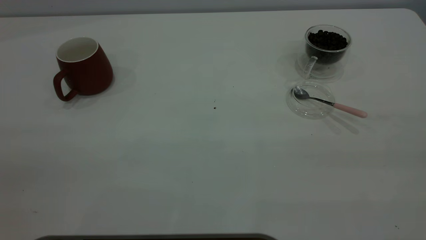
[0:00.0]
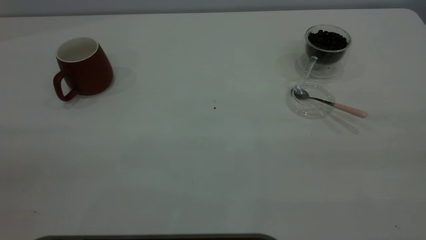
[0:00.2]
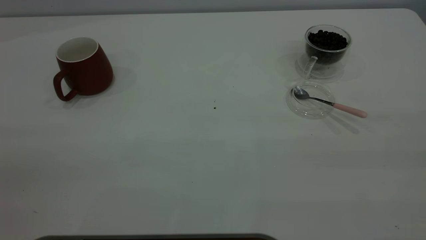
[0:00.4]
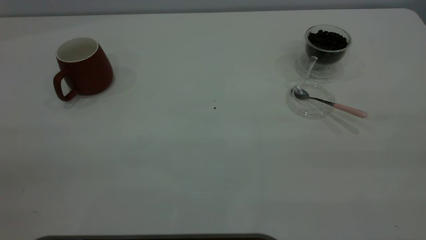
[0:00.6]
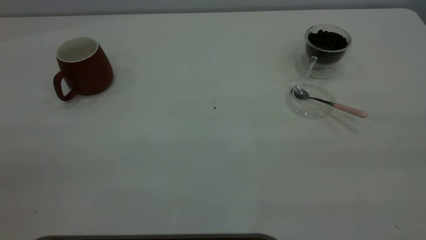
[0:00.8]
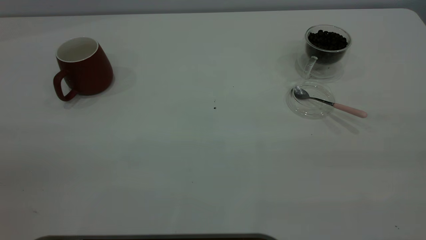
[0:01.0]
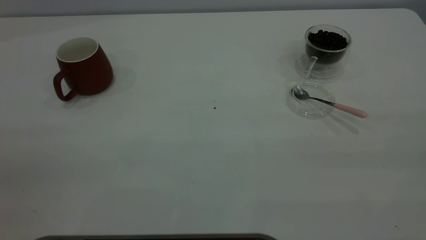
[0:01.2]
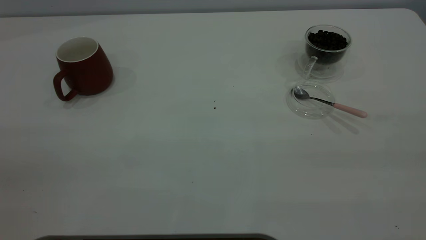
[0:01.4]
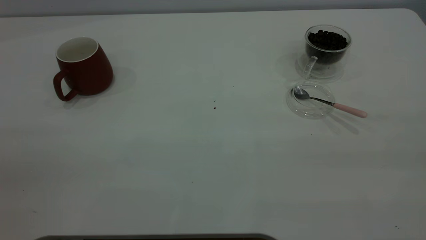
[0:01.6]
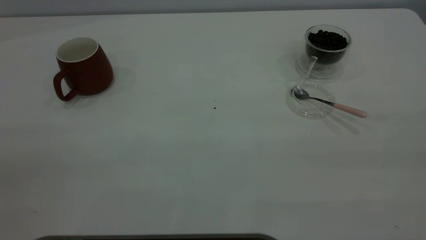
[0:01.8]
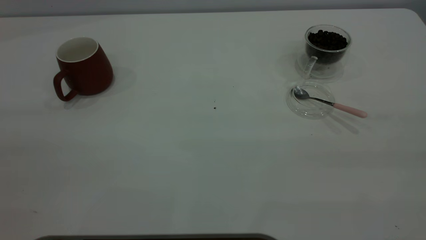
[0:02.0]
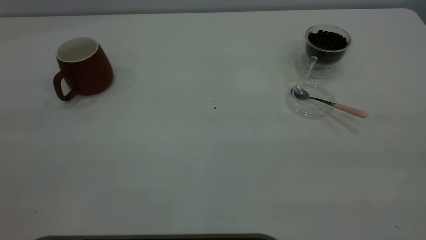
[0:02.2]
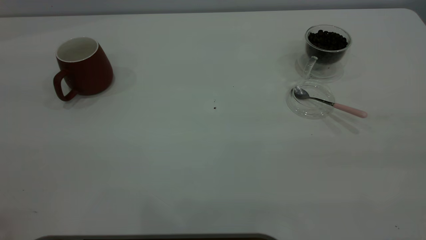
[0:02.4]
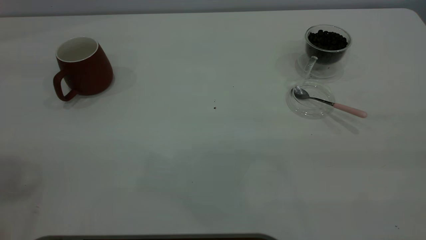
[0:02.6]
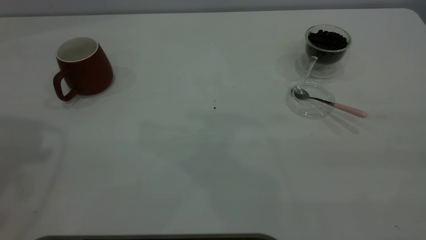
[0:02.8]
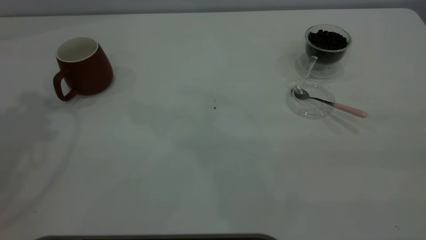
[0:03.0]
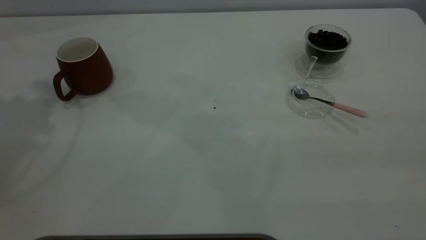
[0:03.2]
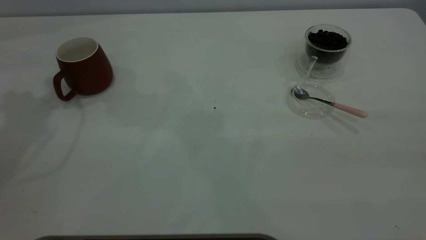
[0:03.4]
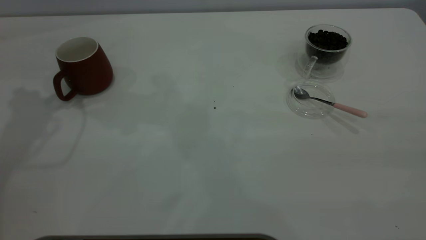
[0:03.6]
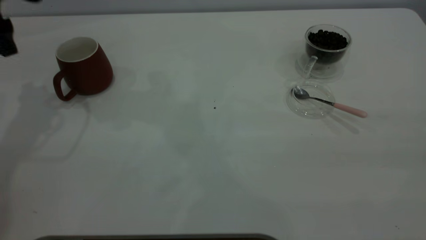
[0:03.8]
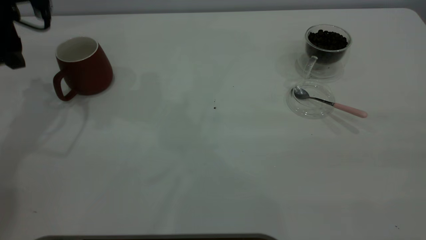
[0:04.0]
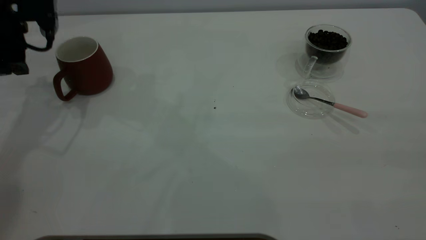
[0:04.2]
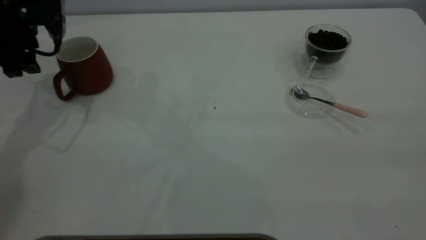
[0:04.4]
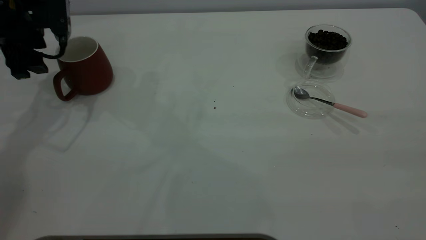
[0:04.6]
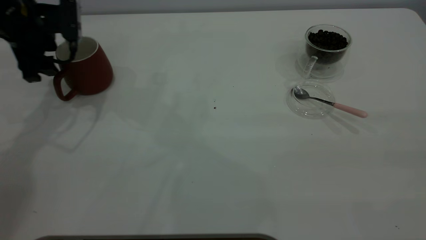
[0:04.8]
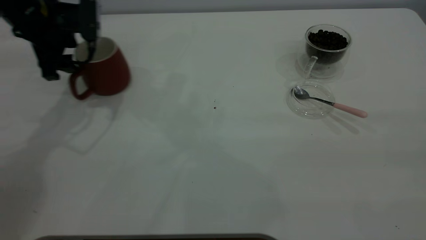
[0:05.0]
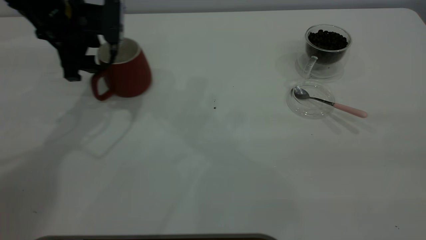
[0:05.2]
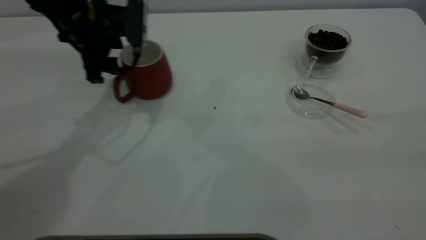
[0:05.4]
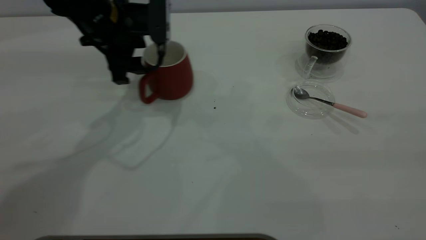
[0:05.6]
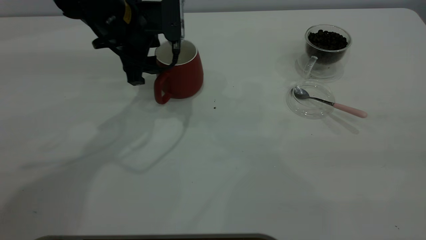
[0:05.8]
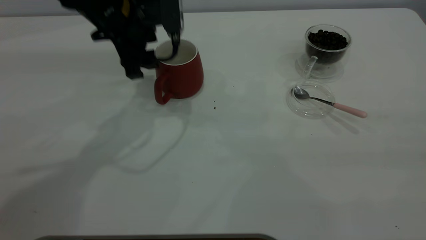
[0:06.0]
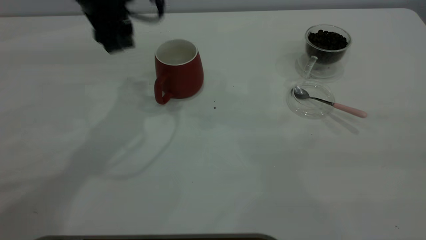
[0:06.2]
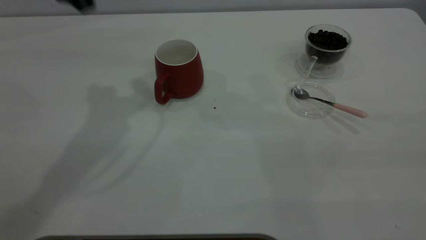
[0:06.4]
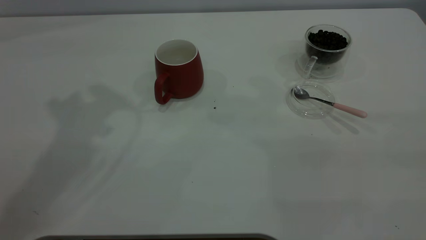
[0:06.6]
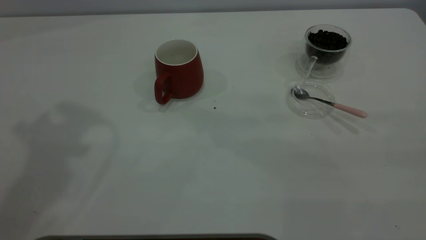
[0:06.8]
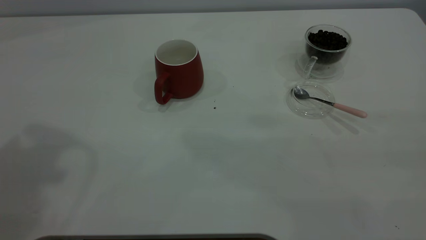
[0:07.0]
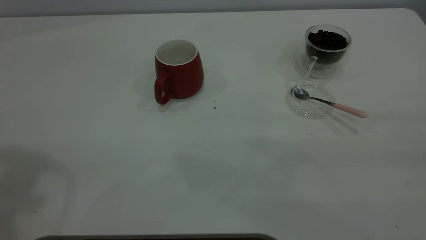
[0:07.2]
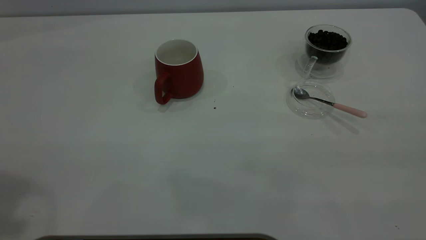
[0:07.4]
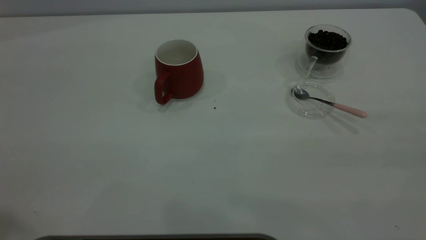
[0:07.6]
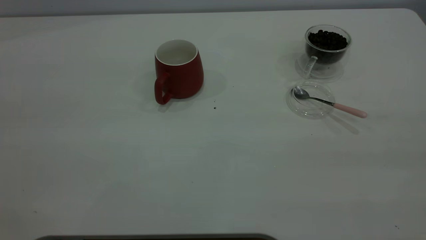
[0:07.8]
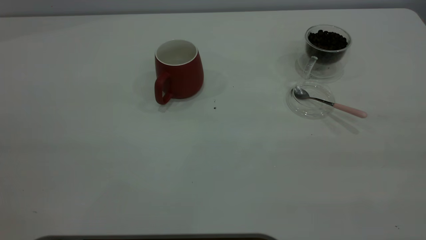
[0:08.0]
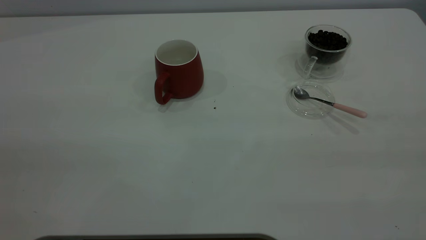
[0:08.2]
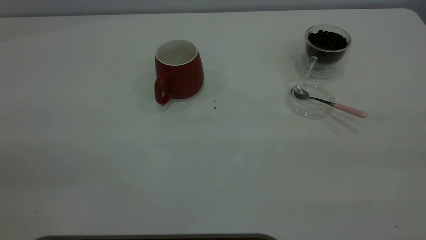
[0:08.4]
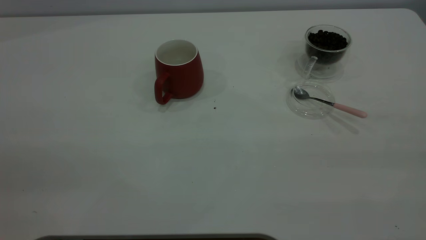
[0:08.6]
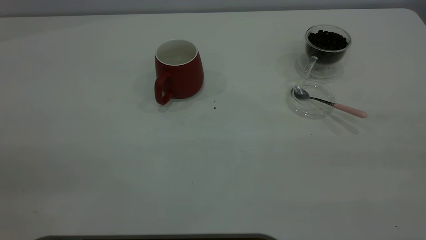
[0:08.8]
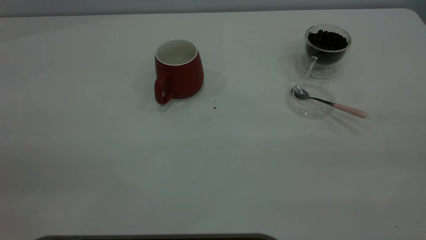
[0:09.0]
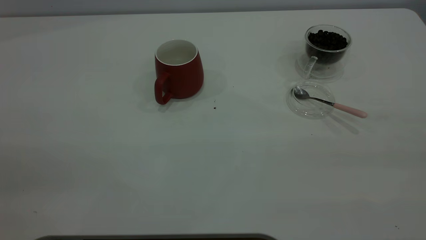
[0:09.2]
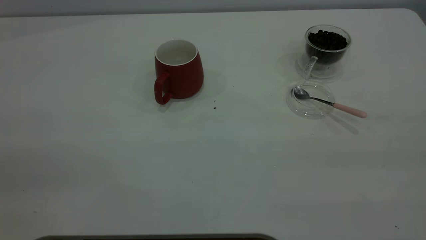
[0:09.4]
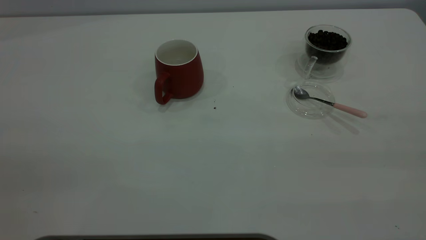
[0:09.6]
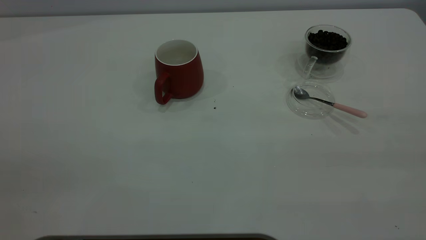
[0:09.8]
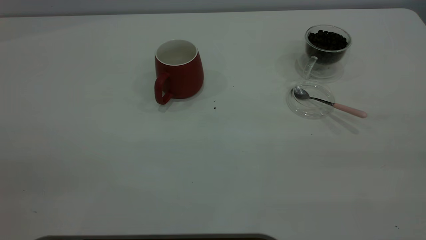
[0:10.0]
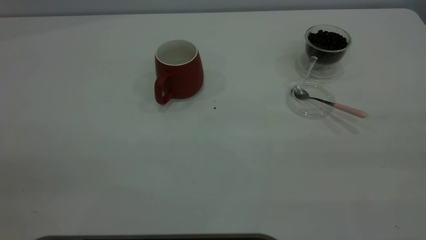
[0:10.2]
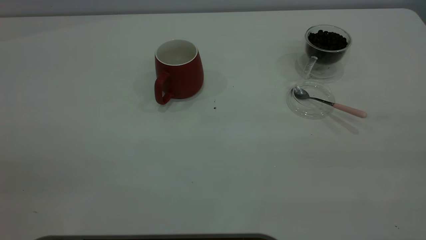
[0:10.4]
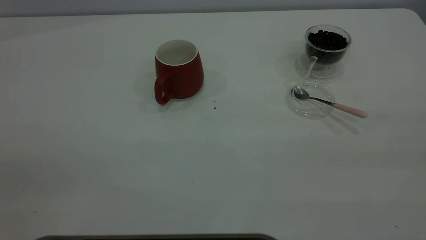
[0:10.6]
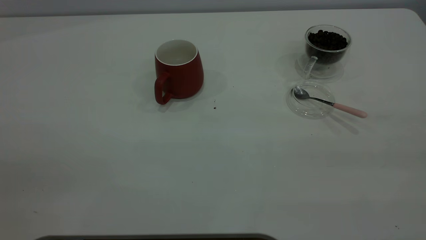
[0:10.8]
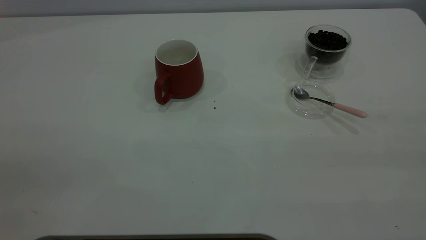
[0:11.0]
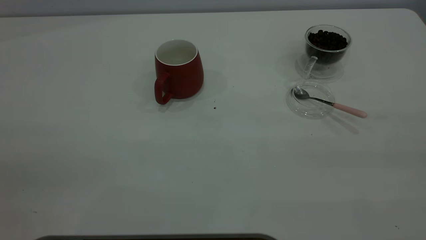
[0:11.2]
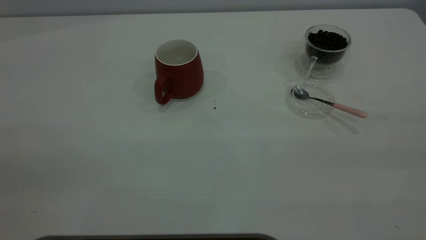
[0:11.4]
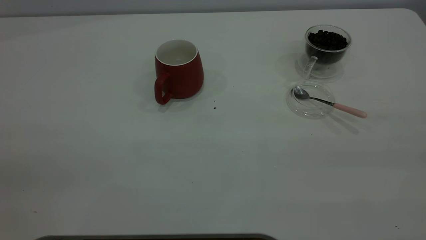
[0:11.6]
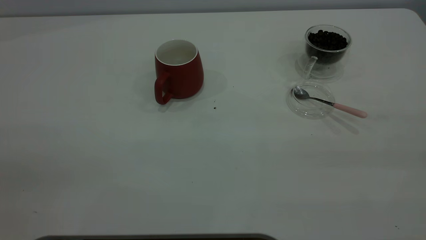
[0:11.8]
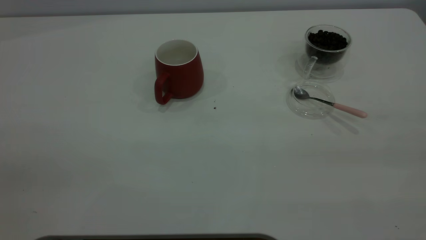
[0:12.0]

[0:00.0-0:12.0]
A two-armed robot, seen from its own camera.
Task of the whole recording: the left gripper place the red cup in the center of the table, the right gripper take the pink spoon from the cup lid and scoop out the coffee beans from the coffee cup and put them into the red cup, the right gripper put the spoon back into the cup lid.
Step, 0:00.0 to 0:06.0: Move the cup to the center of view.
0:00.0 to 0:01.6: Both grippers stay about where they are.
0:03.0 to 0:04.4: The left gripper travels downward and forward by approximately 25 cm.
0:04.4 to 0:06.0: The left gripper heads to the right, covering roughly 15 cm.
0:06.0 to 0:07.6: The left gripper travels upward, backward and to the left by roughly 40 cm.

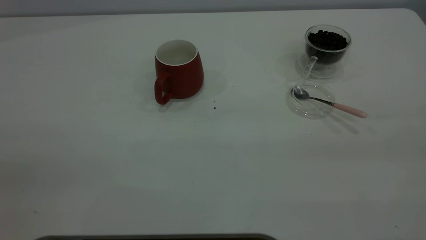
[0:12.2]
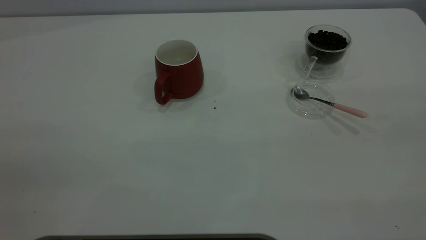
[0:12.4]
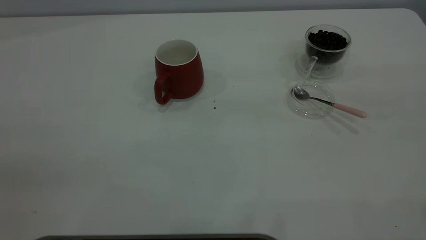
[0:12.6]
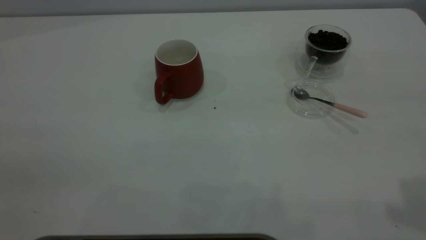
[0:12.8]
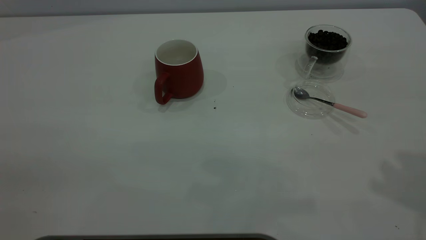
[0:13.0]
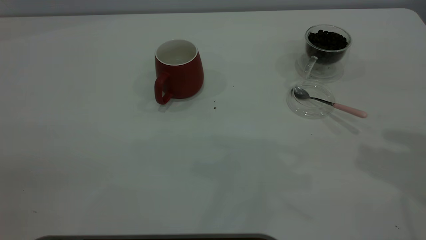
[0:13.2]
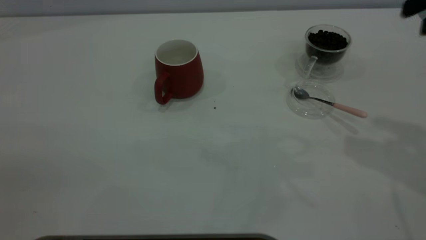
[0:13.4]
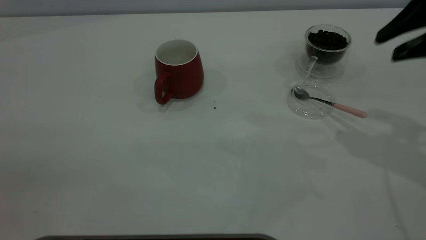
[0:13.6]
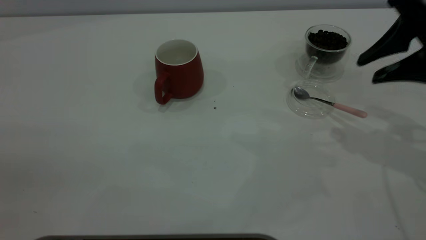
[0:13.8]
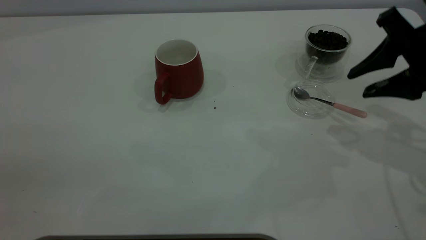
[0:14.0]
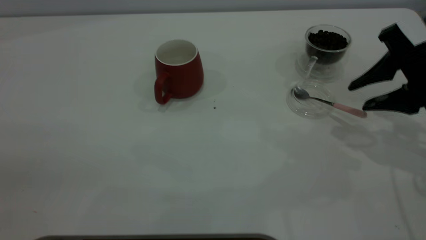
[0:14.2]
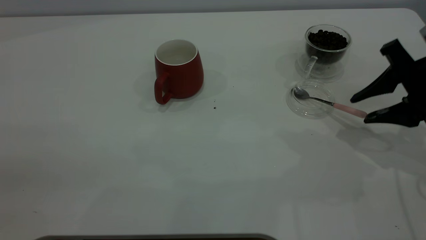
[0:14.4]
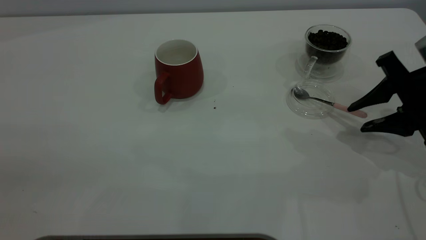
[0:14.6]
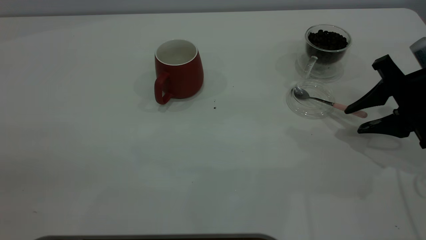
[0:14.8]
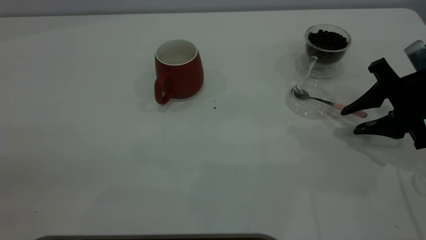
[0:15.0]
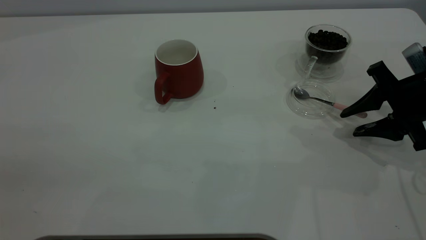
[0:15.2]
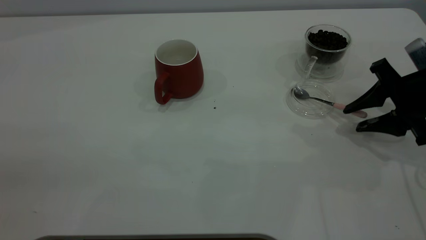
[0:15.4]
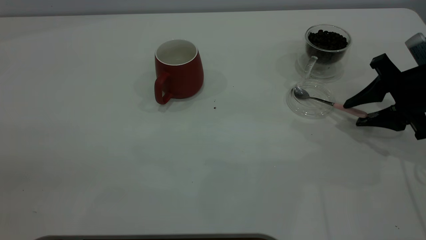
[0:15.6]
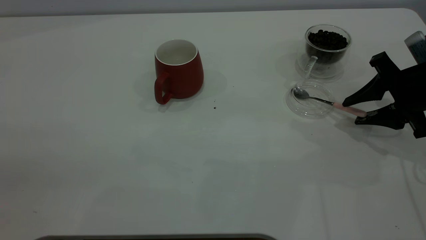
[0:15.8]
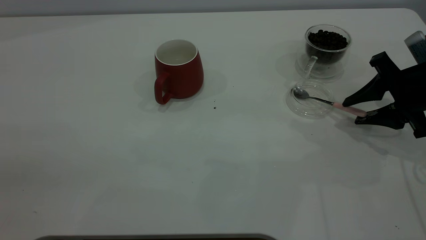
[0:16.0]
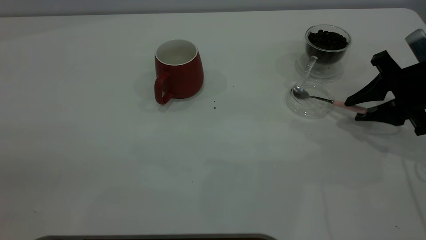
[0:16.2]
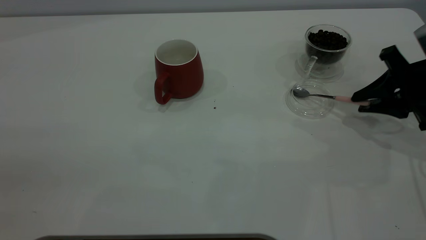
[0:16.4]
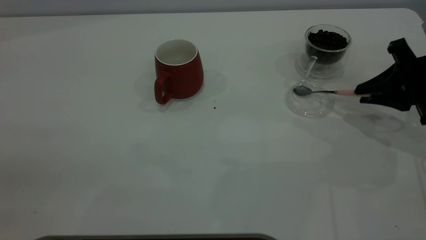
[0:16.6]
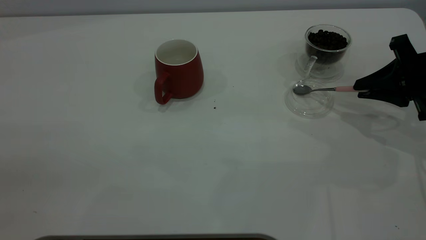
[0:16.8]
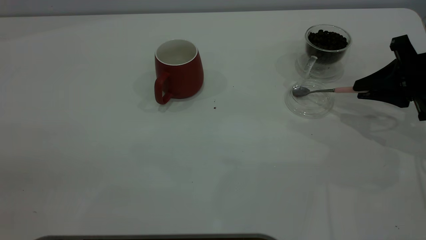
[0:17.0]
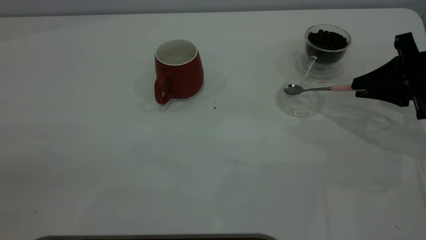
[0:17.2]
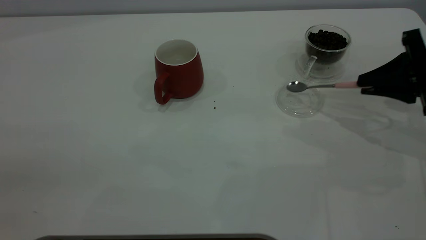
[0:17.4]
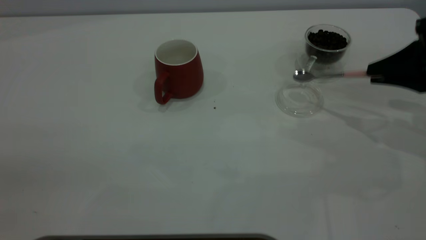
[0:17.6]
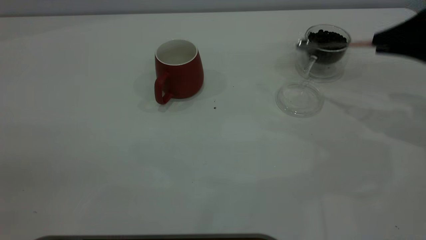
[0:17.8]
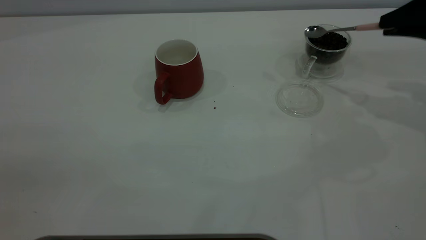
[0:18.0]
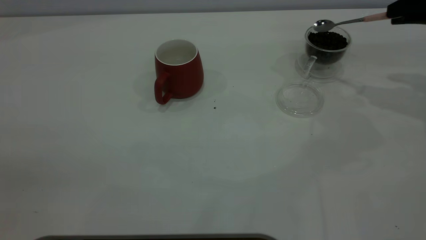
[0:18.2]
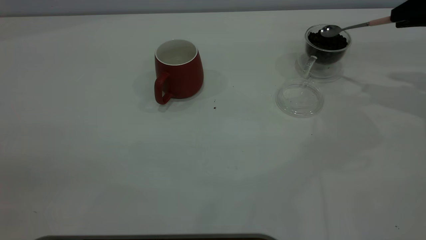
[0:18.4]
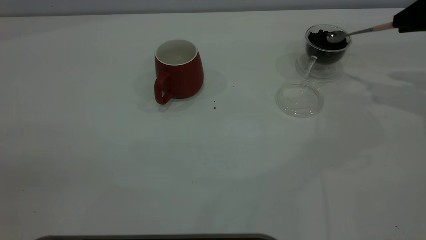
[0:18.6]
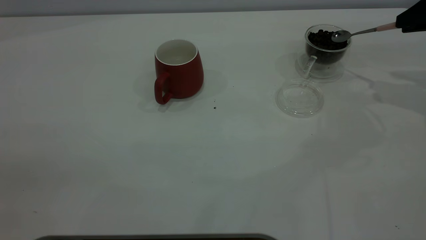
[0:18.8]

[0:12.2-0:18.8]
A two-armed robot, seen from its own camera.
Task of the whole recording: the left gripper place the red cup in the center of the table, the right gripper take the pink spoon from the cup lid and scoop out the coffee beans from the coffee cup and put them into the red cup, the right gripper put the spoon back into the cup lid.
Step, 0:12.2 to 0:17.4: Pick up the spoon.
0:12.2 to 0:13.8: The right gripper shifts some 35 cm forward and downward.
0:13.8 to 0:15.4: The right gripper goes roughly 10 cm downward.
0:15.4 to 0:17.2: The right gripper closes.
0:17.2 to 0:18.8: The right gripper shifts roughly 10 cm upward, forward and to the right.
